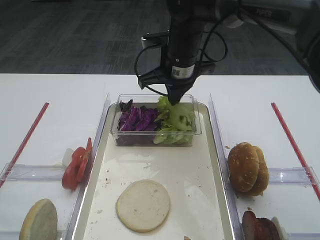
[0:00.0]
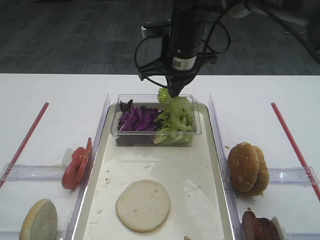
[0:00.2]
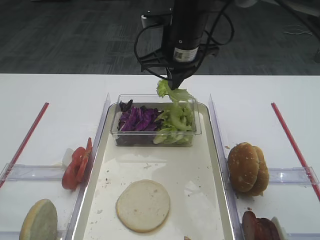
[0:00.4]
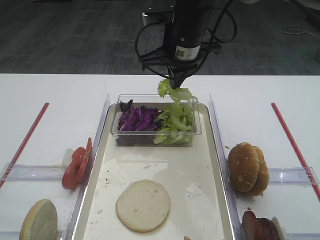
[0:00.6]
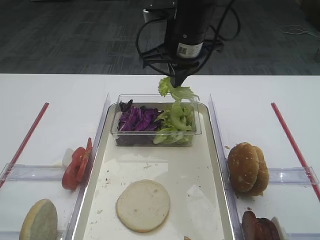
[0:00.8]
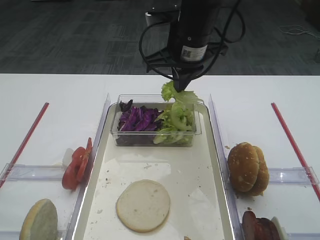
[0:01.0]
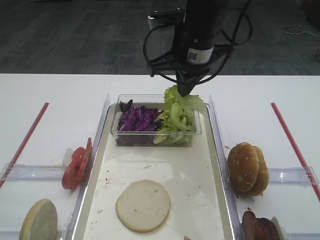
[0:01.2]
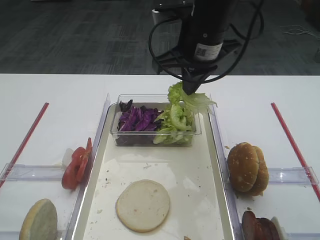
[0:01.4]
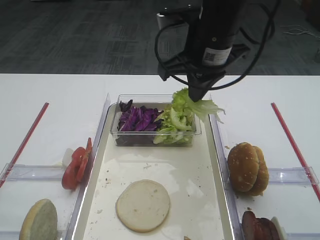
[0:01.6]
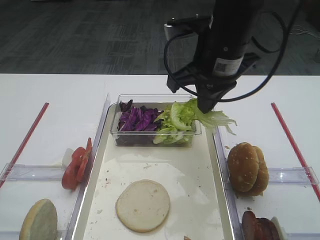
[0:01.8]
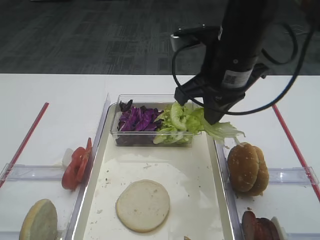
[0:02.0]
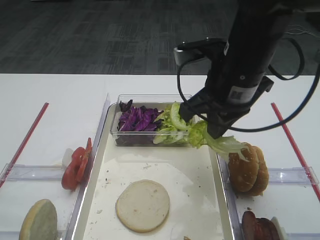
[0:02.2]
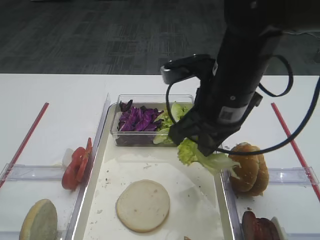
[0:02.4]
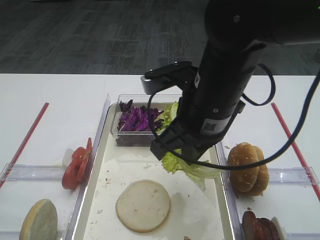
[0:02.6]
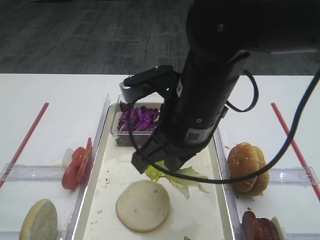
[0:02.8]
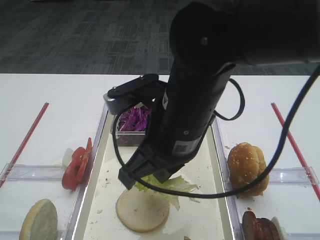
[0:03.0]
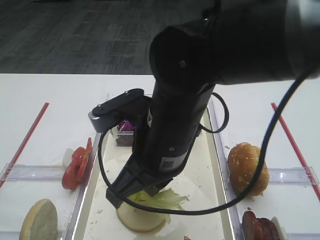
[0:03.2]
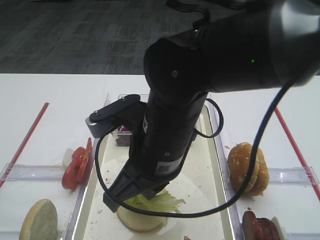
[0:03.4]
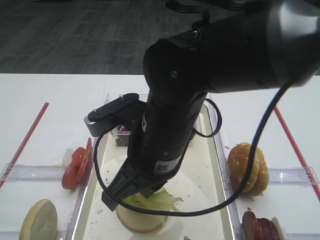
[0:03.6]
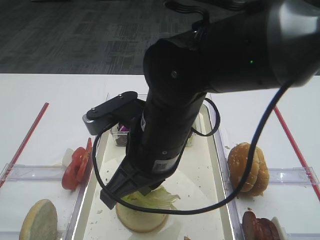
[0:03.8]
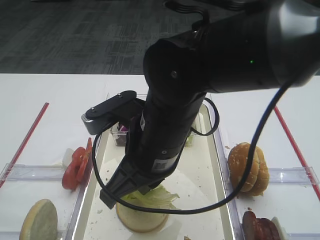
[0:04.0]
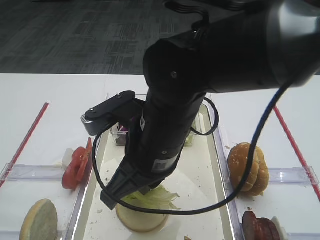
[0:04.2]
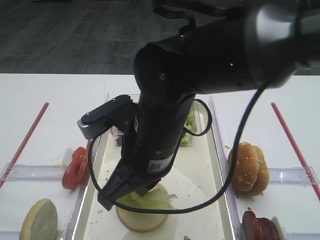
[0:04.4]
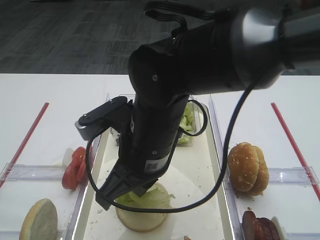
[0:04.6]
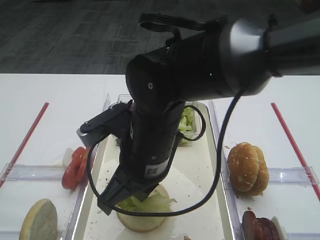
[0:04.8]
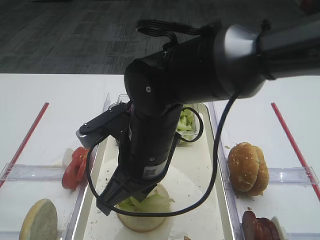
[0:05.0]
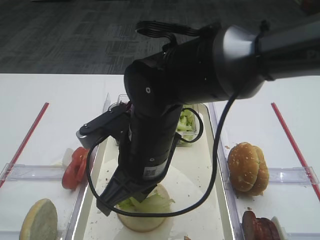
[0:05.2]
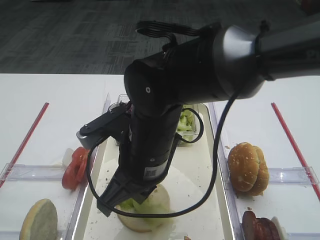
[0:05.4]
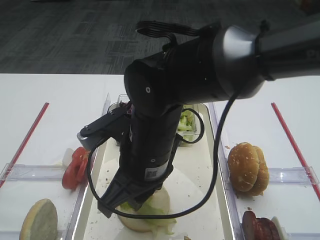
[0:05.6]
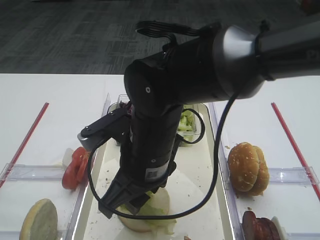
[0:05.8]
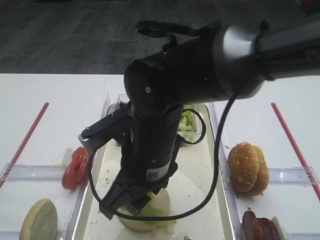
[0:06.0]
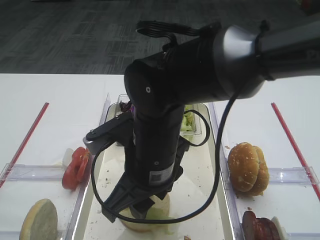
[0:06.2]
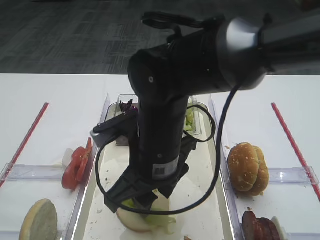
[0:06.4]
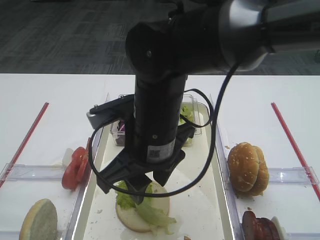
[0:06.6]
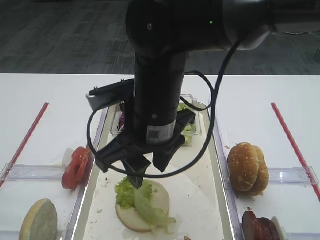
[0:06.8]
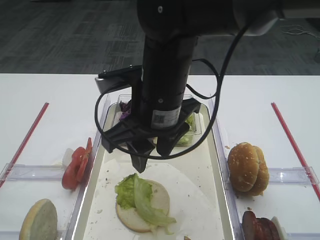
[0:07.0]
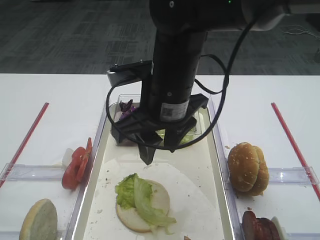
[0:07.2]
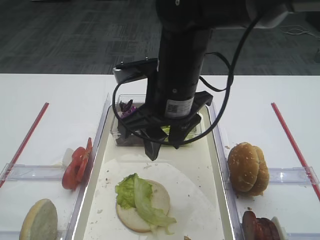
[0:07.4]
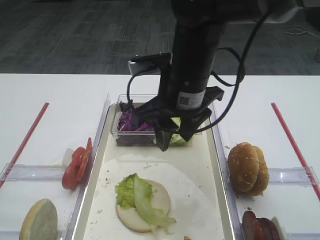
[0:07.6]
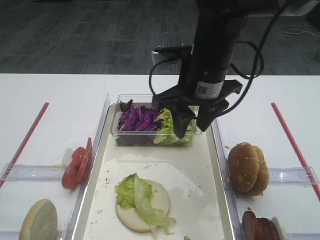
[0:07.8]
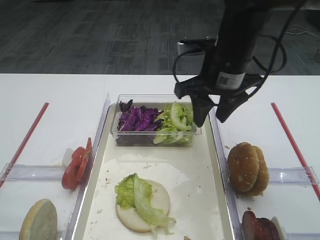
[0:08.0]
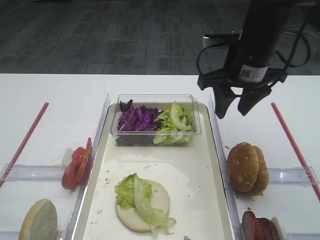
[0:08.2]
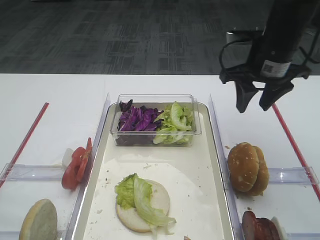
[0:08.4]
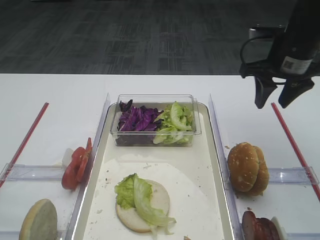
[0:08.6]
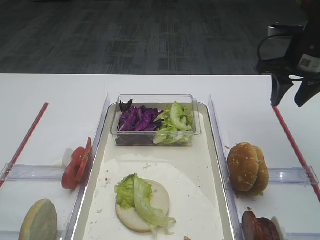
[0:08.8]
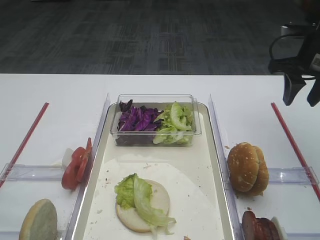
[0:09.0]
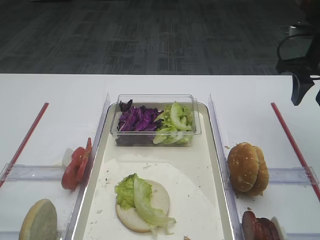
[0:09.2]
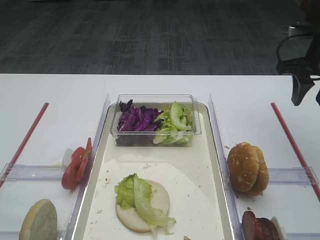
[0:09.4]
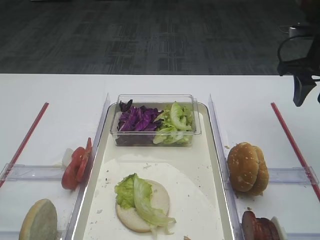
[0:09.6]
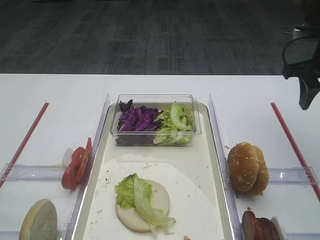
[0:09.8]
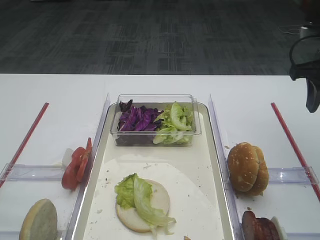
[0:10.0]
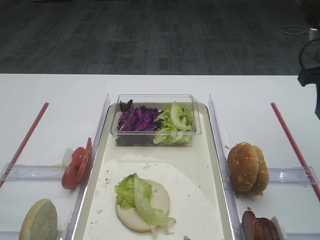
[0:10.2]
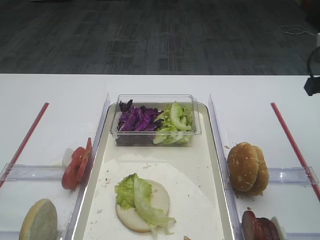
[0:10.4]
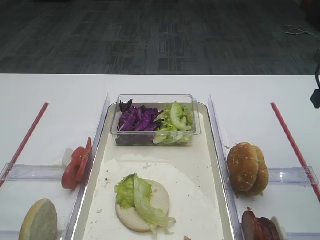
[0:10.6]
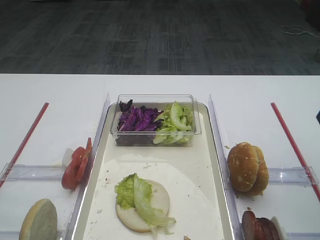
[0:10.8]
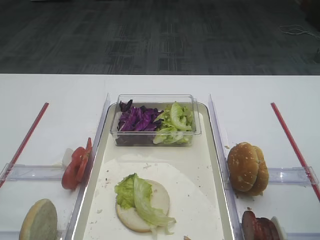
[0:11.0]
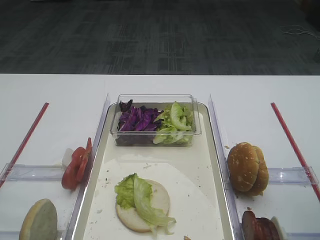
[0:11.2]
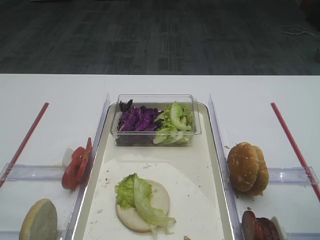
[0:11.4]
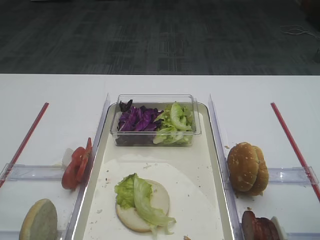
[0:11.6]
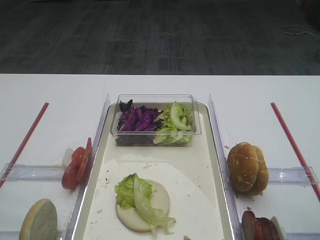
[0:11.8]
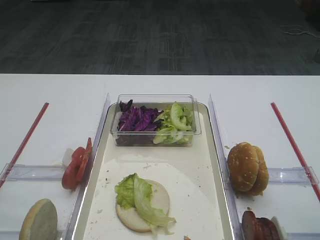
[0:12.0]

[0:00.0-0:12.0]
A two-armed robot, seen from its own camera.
Step, 0:00.8 to 0:06.8: Place the lettuce leaf on the bread slice with the right gripper.
0:00.0 to 0:01.6: The right gripper heads backward and upward, covering some 10 cm.
0:01.6 to 0:03.0: The right gripper goes approximately 15 cm backward, to the left and downward.
0:04.4 to 0:06.0: The right gripper opens up.
0:06.0 to 0:07.6: The right gripper shifts roughly 10 cm forward, upward and to the right.
0:07.6 to 0:09.0: The right gripper shifts approximately 25 cm to the right.
0:09.0 to 0:10.4: The right gripper heads backward, covering some 10 cm.

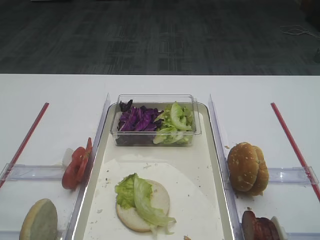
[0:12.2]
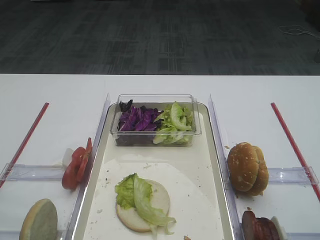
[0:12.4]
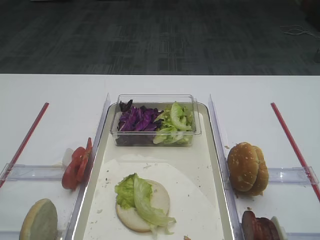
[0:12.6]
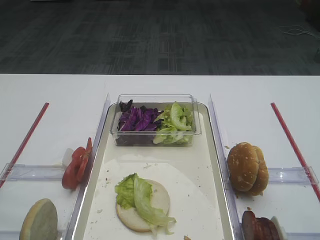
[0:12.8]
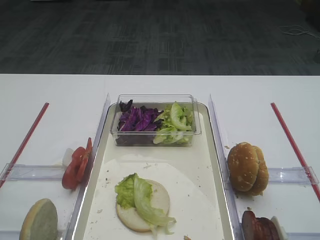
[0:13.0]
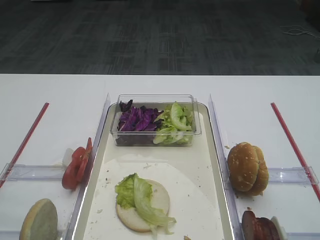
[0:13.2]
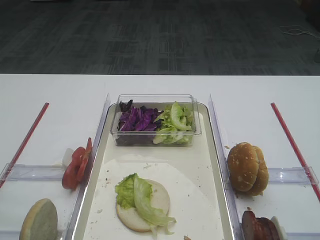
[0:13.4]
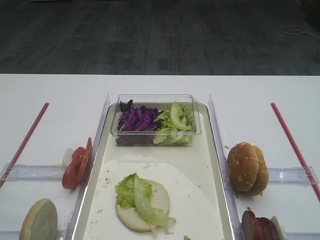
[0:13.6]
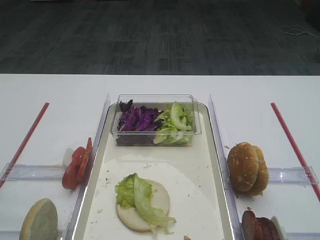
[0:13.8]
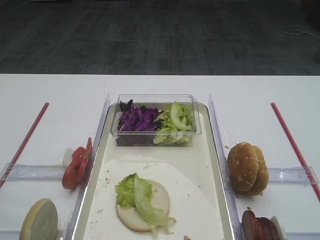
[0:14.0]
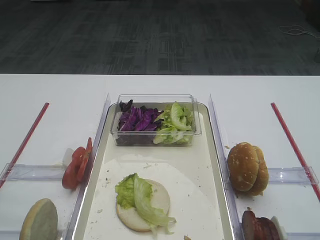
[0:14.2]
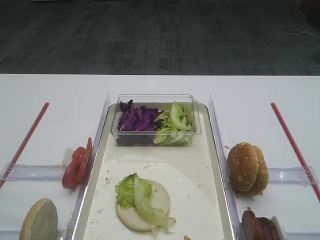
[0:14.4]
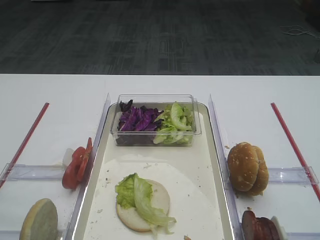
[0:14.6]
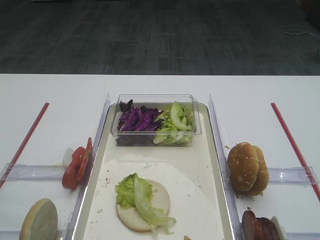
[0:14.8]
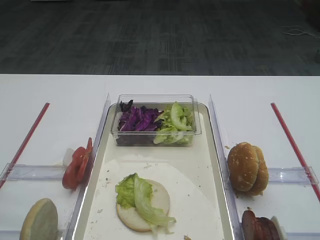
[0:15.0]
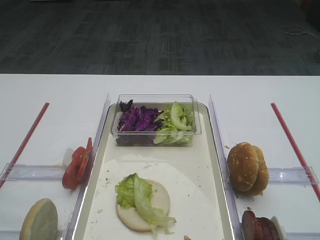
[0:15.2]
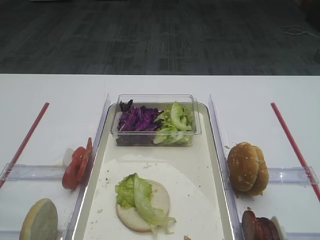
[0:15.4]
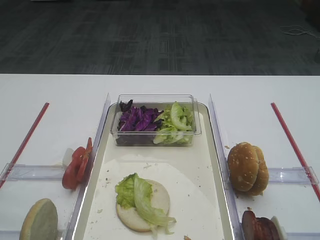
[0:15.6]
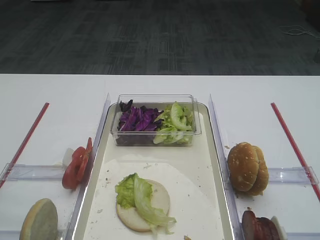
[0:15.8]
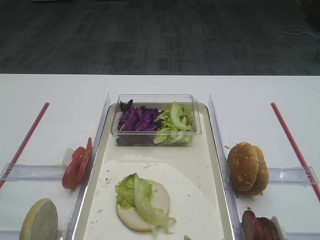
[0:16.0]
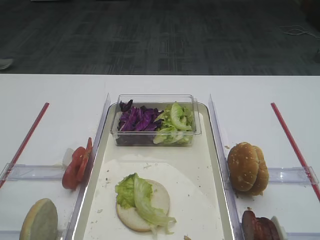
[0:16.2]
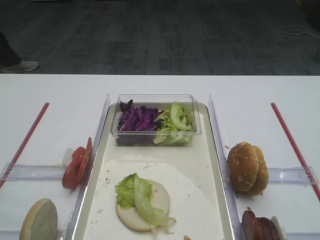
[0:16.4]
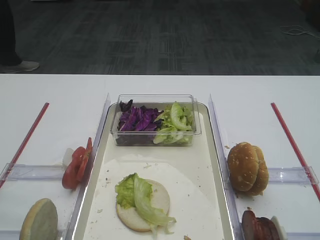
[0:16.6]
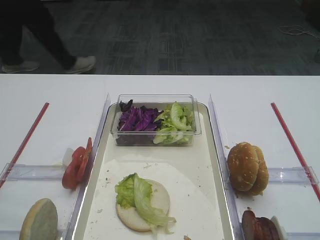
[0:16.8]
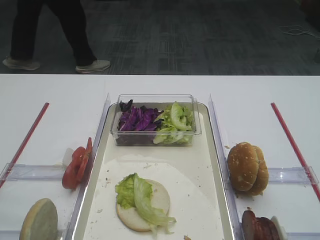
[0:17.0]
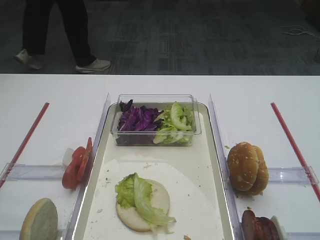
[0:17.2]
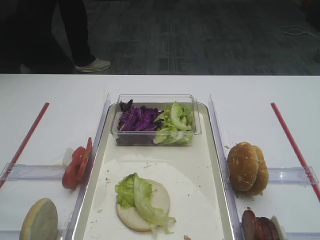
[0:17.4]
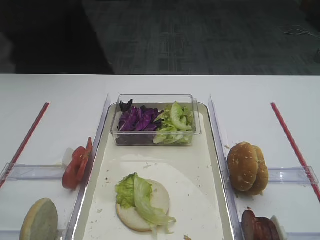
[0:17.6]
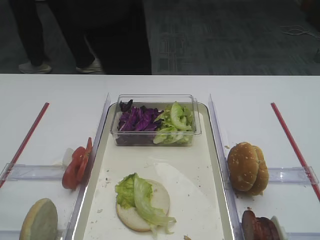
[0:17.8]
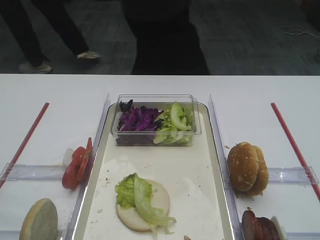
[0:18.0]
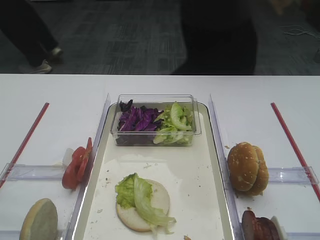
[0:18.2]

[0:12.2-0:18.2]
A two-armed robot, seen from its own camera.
0:15.2 to 0:18.2: The two grippers keep their place.

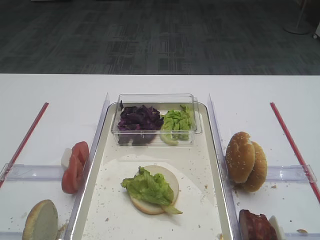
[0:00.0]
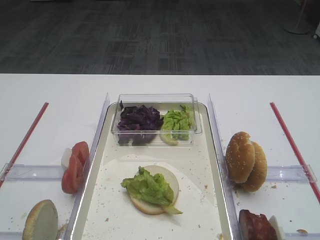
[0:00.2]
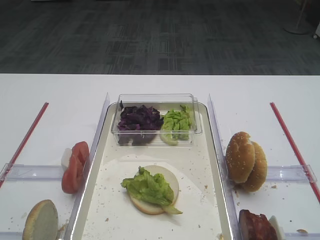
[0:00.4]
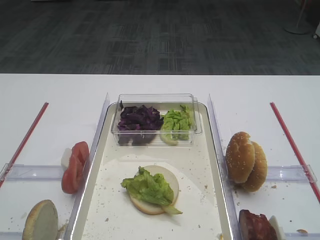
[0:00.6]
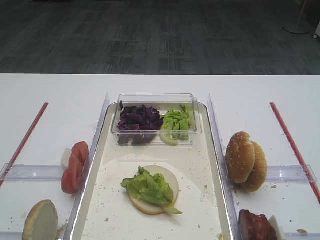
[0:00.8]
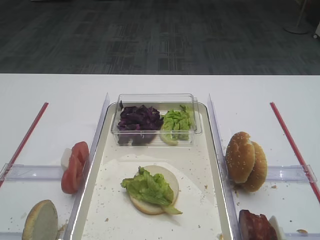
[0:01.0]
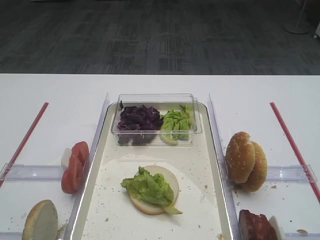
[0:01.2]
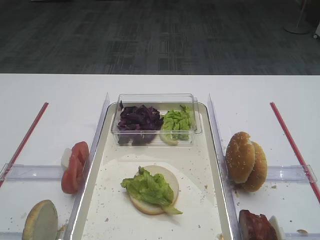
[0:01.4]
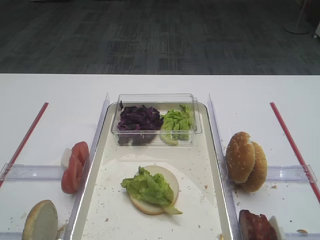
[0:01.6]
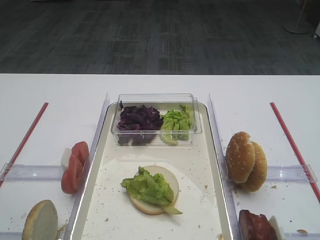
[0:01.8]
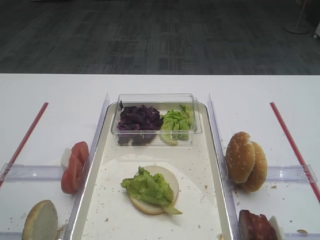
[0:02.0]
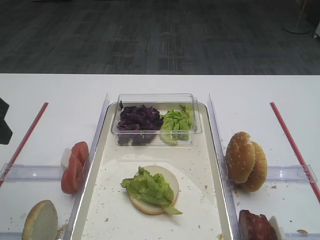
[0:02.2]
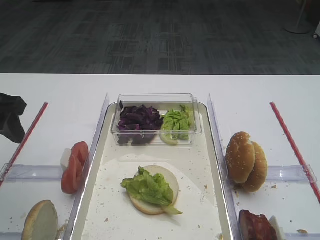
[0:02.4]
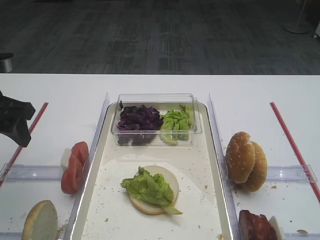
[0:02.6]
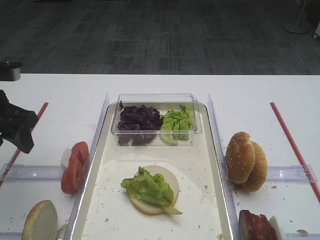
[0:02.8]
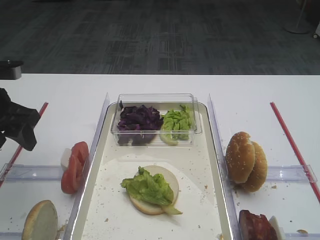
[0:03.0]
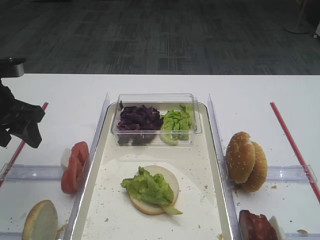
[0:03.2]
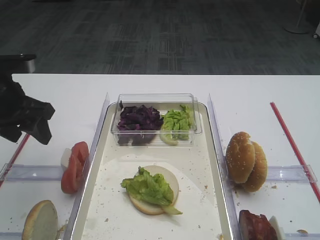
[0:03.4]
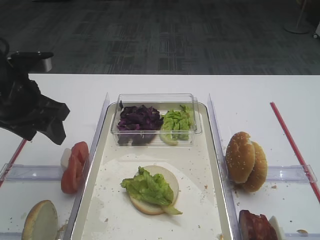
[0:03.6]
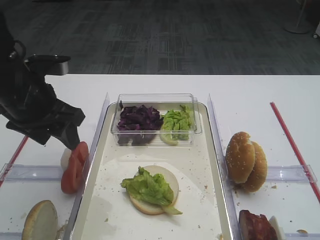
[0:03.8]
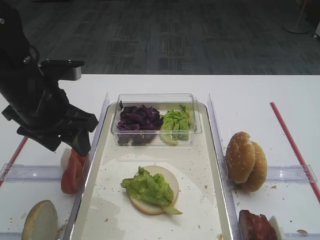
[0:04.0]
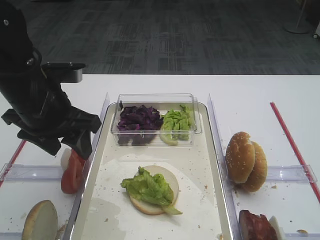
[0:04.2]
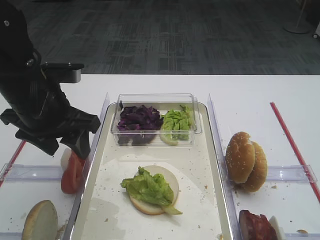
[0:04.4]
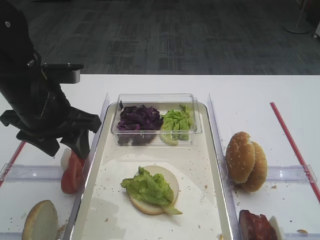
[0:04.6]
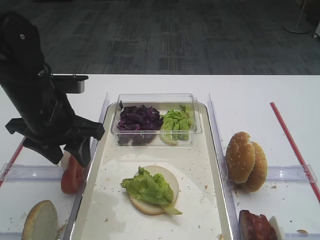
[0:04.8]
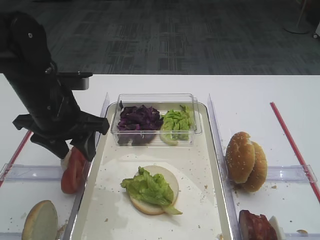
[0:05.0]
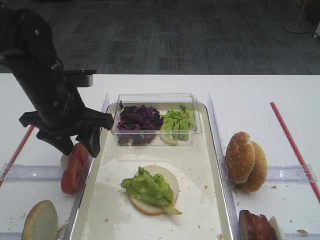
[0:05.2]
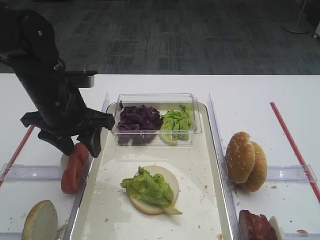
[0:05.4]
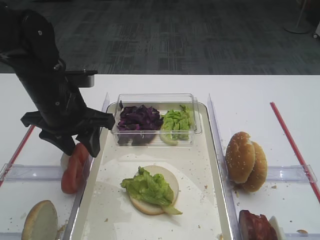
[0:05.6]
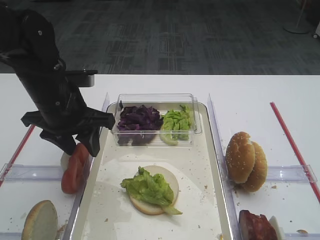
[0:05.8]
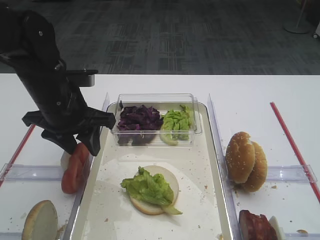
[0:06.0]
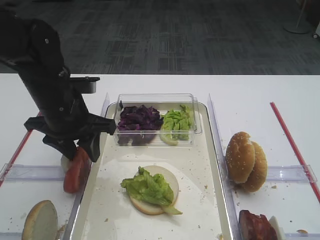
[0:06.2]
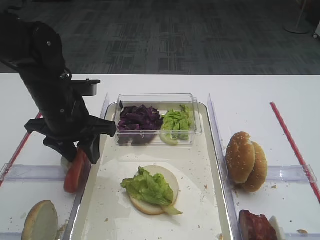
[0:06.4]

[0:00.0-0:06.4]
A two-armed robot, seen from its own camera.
0:01.6 to 0:03.2: The left gripper moves forward, about 25 cm.
0:03.2 to 0:04.8: The left gripper heads to the right, covering about 10 cm.
0:04.8 to 0:06.4: The grippers make only small movements.
